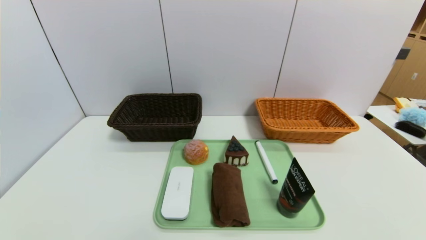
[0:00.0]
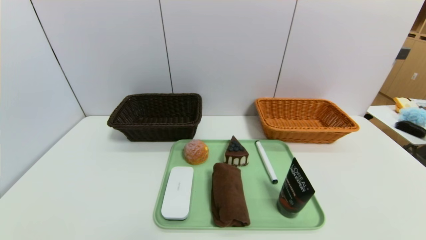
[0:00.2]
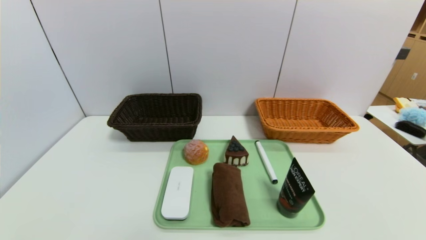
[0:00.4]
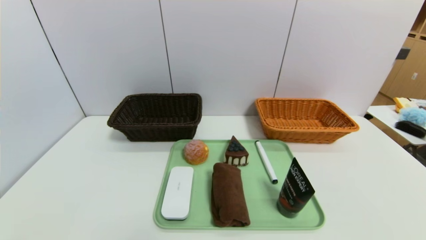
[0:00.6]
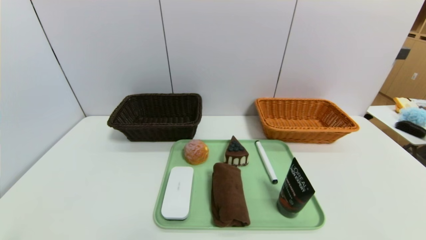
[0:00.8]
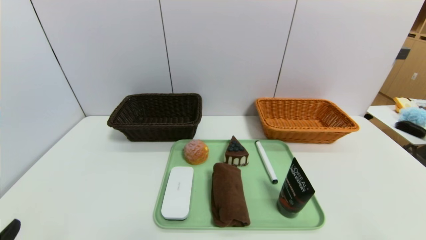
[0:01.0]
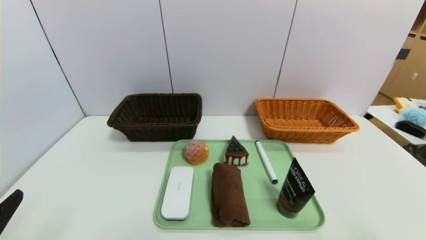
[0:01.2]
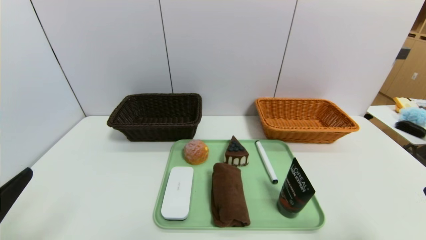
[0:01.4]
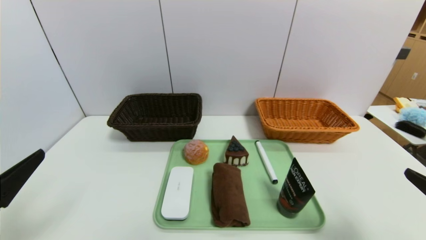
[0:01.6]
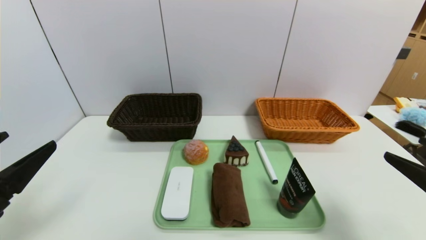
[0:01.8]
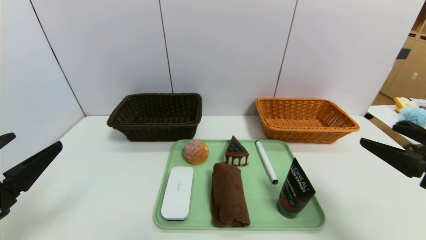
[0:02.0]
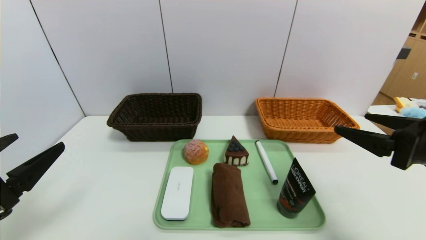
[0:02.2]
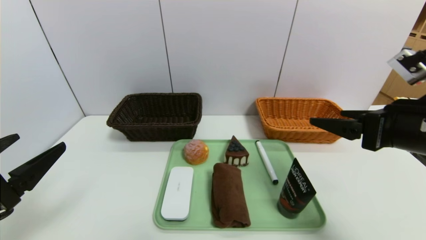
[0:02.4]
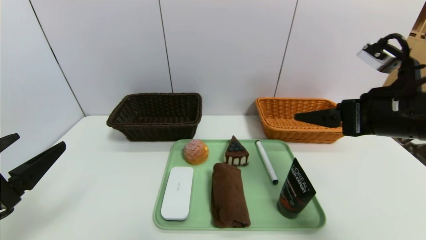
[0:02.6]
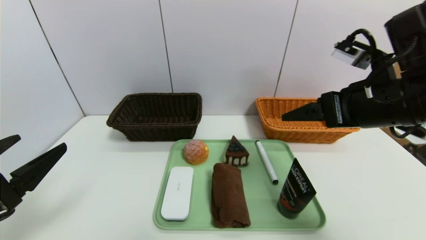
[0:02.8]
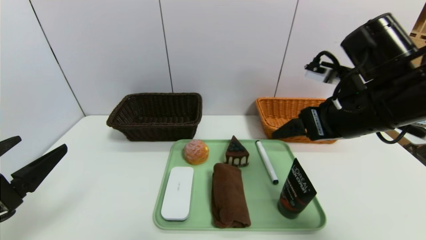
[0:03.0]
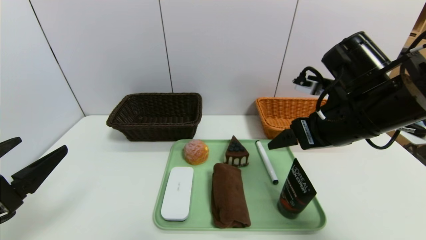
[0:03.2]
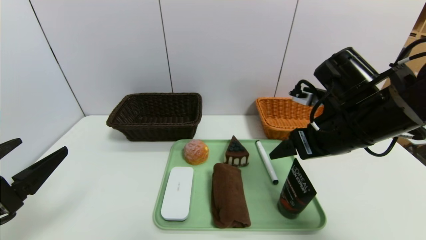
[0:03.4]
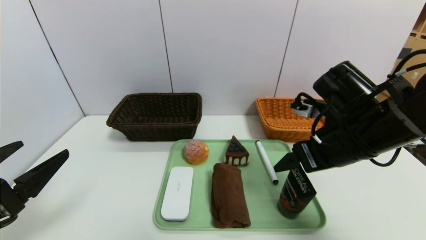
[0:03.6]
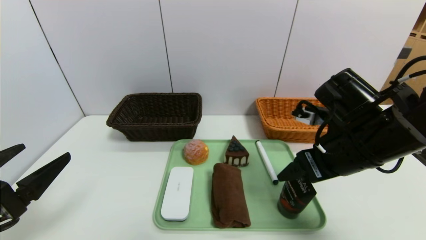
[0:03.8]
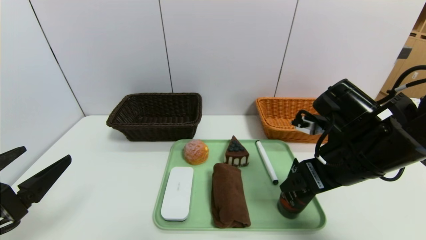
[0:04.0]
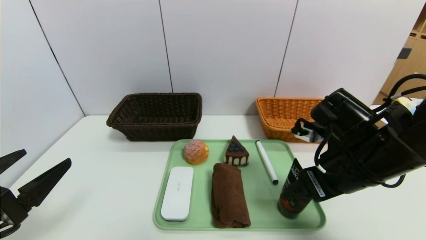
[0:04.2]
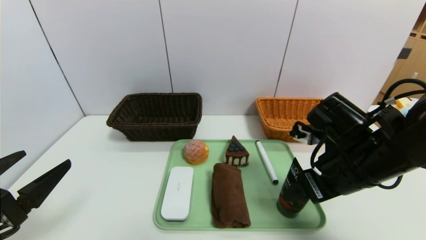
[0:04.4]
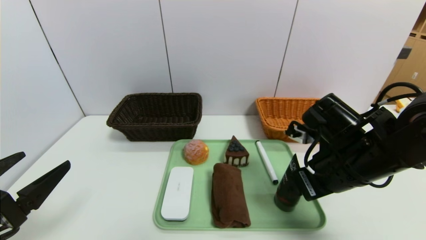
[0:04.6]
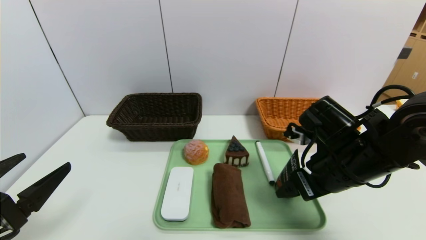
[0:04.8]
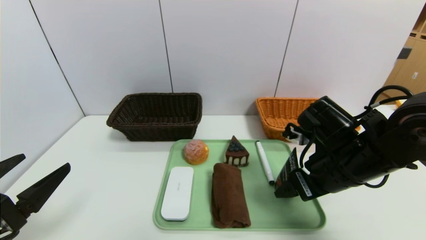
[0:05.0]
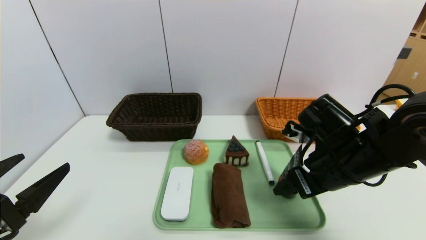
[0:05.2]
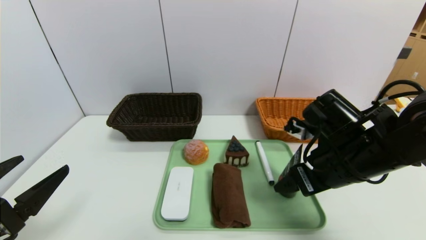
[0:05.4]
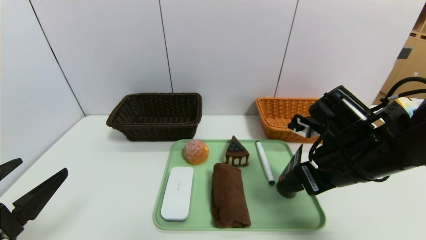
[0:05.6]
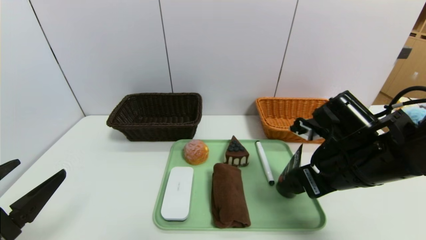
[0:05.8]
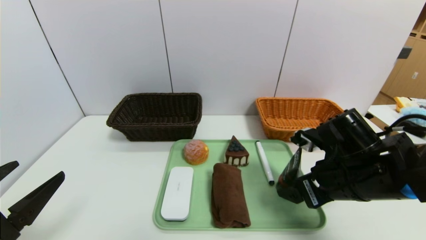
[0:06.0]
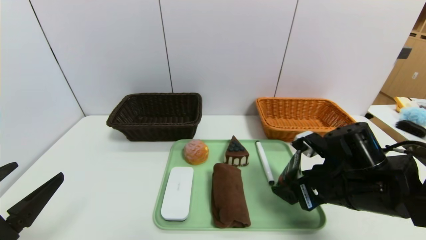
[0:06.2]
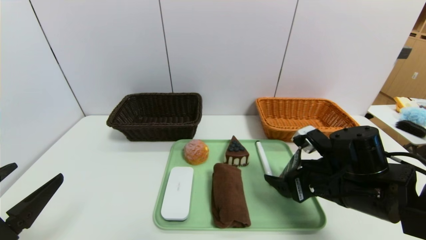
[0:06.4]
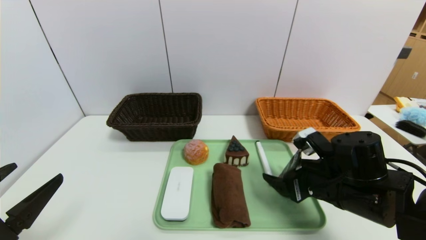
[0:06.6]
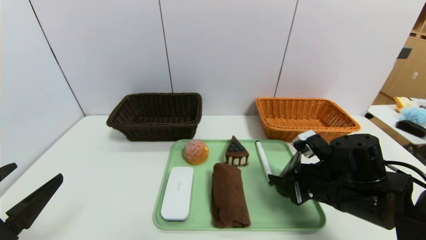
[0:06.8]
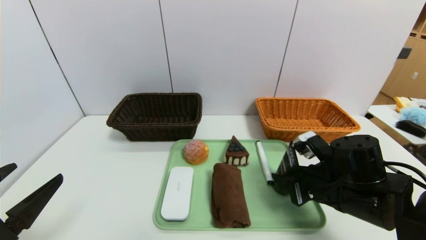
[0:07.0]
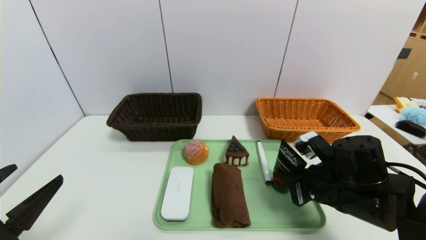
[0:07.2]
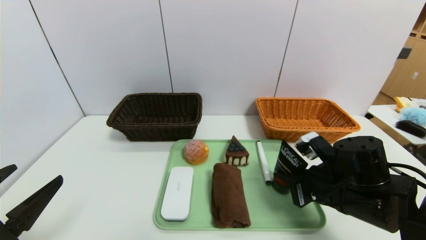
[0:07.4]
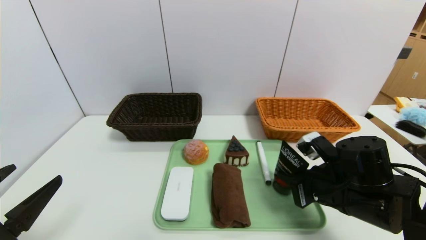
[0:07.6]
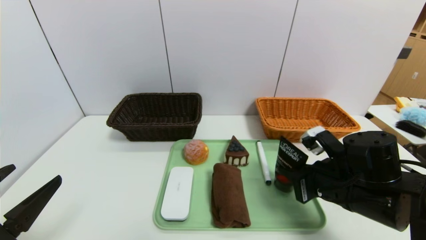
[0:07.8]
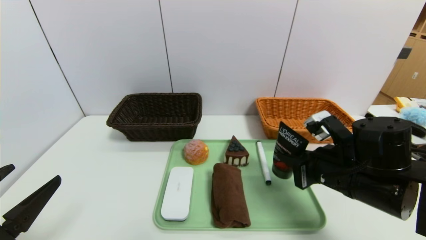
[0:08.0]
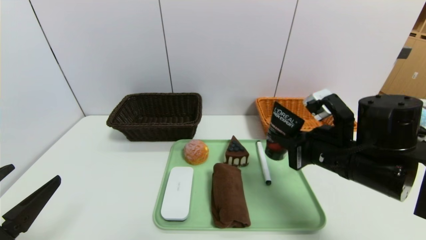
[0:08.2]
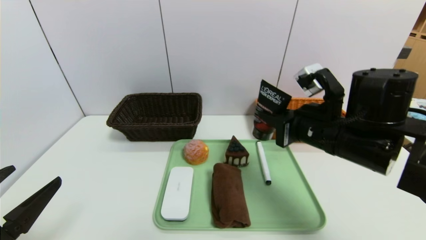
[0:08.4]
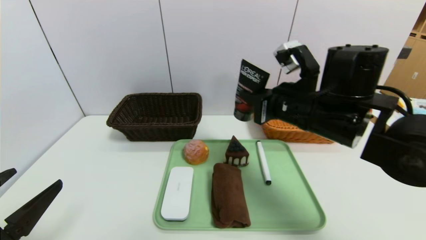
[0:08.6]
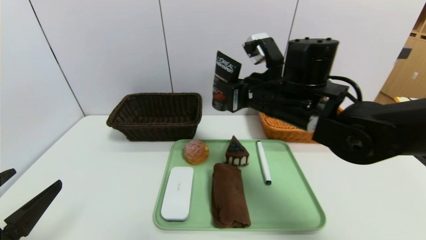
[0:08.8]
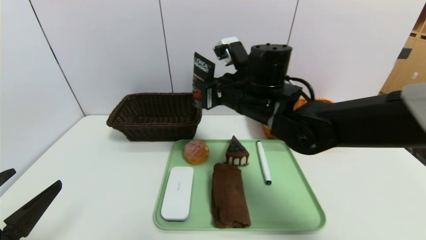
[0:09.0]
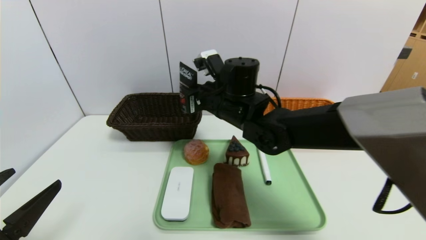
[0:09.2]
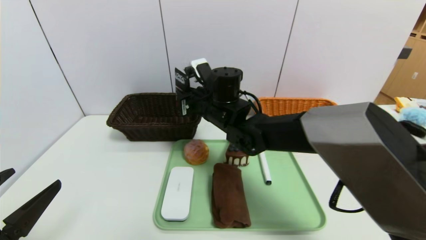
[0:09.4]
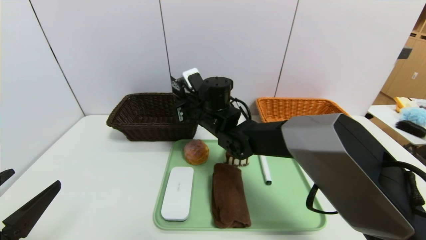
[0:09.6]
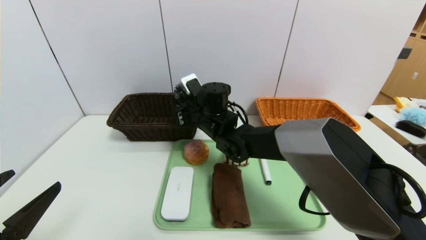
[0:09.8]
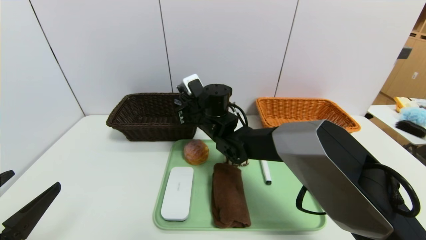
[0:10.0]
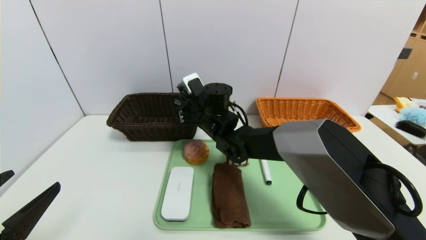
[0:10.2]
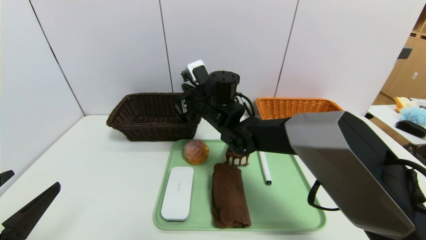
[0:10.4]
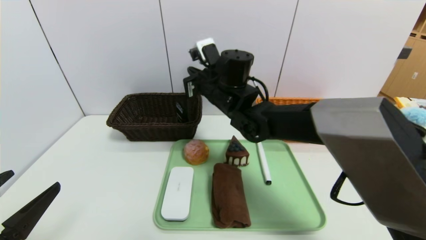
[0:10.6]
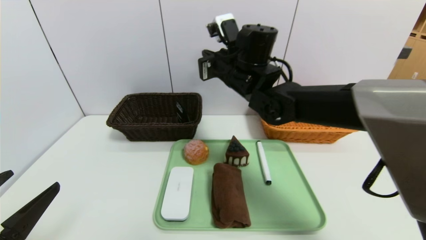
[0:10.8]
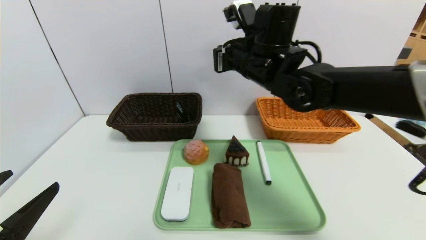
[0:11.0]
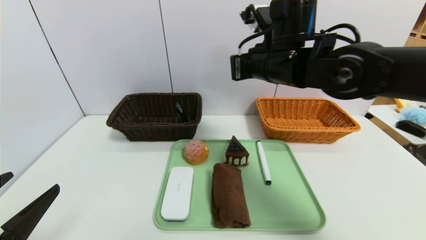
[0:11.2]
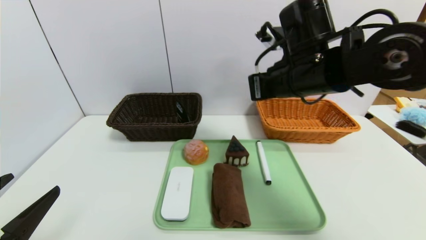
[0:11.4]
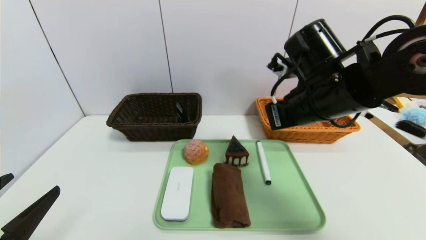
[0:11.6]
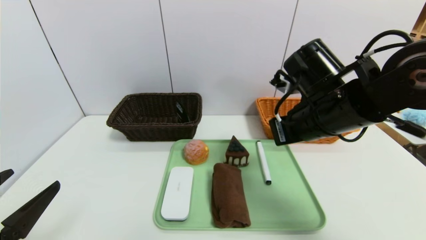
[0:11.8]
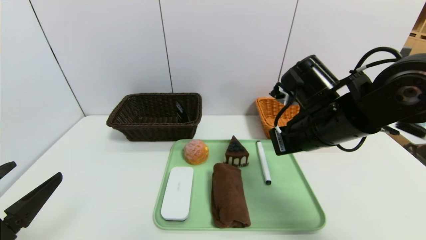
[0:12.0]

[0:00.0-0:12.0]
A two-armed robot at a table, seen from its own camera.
Task of the whole recording: place the food in the right basket with the right gripper, and place the non food items in the left basket with the left gripper.
Step, 0:00.0 to 0:10.4: Grasp the hard cleanser and put it in the left basket.
0:00.0 to 0:01.6: Both grippers move upward and forward, some 15 cm.
0:01.6 to 0:03.0: The right gripper heads forward, to the left and upward, covering approximately 20 cm.
0:03.0 to 0:04.4: The right gripper shifts about 10 cm downward.
0:04.4 to 0:06.0: The grippers make only small movements.
0:06.0 to 0:07.6: The right gripper closes.
0:07.6 to 0:09.0: The right gripper moves to the left, upward and forward, some 25 cm.
0:09.0 to 0:10.4: The right gripper shifts about 10 cm to the left, forward and downward.
0:10.4 to 0:12.0: The right gripper heads to the right and backward, covering about 20 cm.

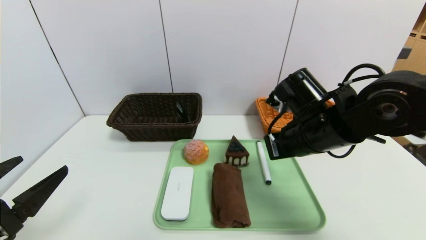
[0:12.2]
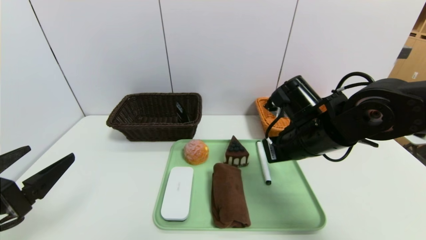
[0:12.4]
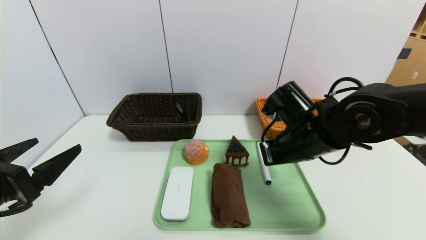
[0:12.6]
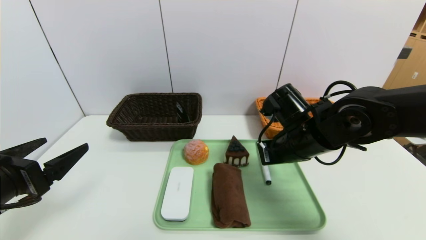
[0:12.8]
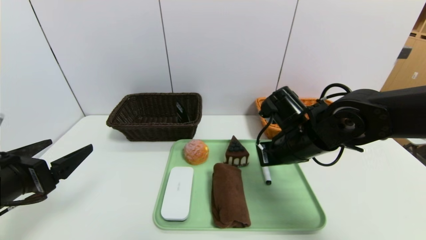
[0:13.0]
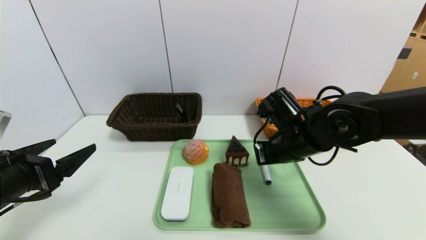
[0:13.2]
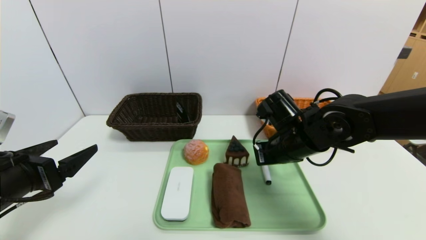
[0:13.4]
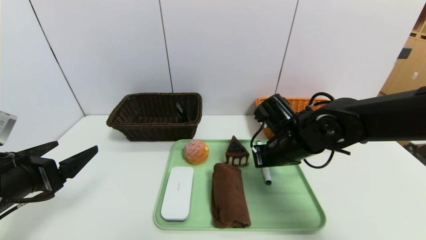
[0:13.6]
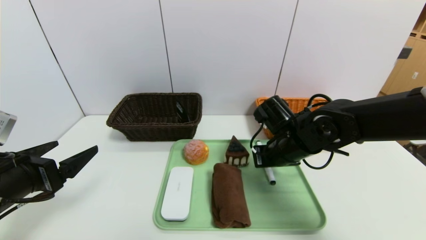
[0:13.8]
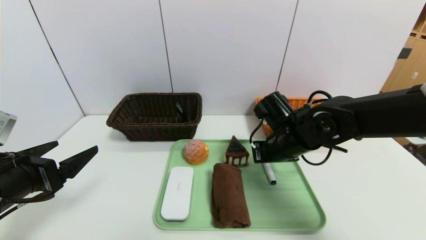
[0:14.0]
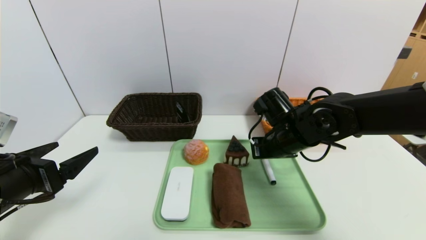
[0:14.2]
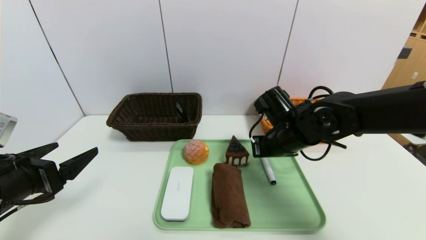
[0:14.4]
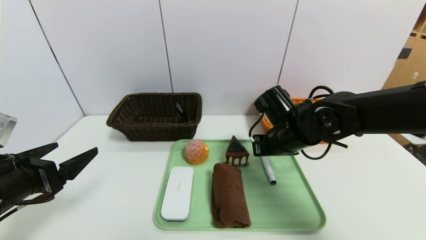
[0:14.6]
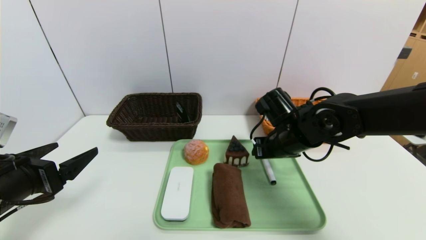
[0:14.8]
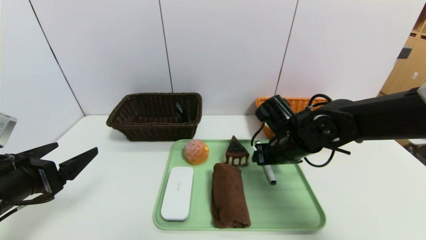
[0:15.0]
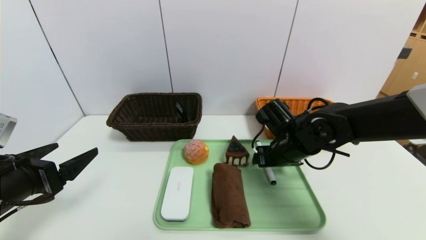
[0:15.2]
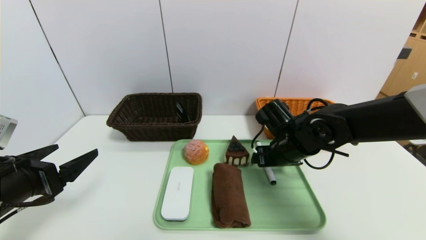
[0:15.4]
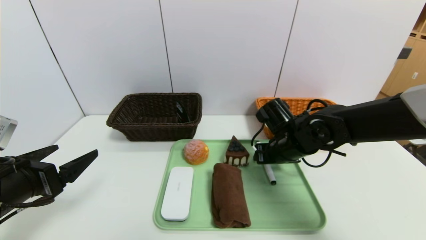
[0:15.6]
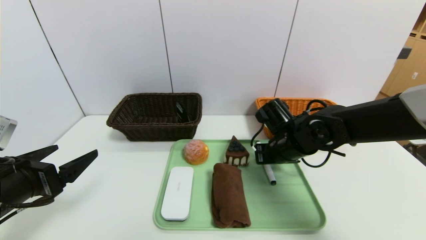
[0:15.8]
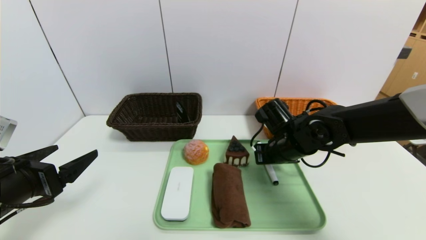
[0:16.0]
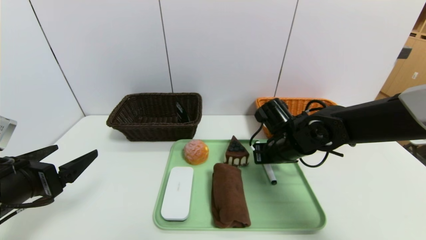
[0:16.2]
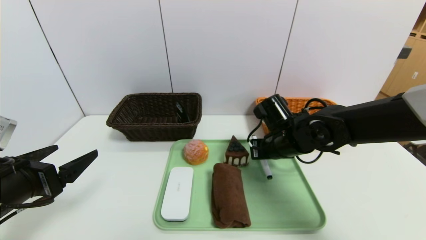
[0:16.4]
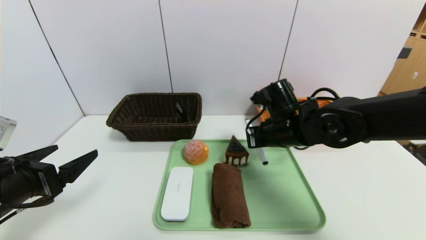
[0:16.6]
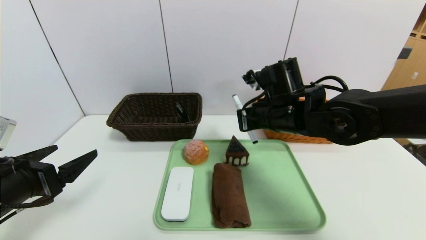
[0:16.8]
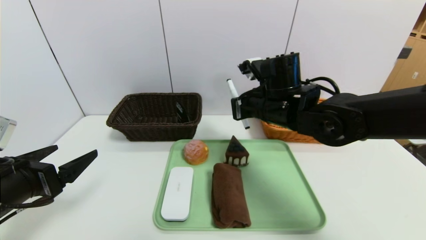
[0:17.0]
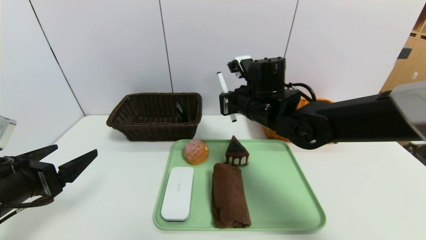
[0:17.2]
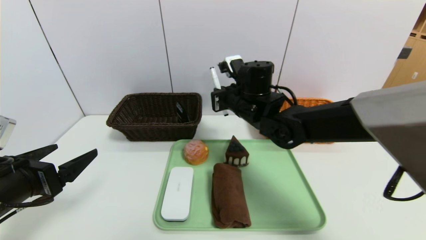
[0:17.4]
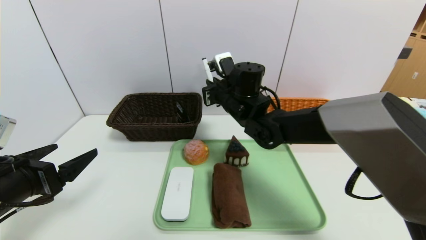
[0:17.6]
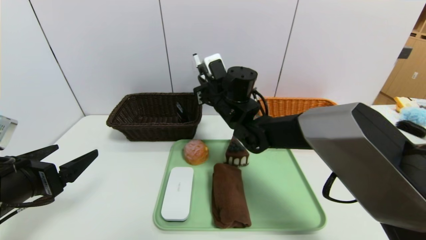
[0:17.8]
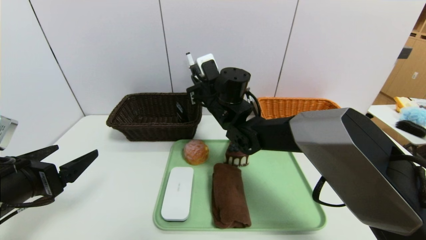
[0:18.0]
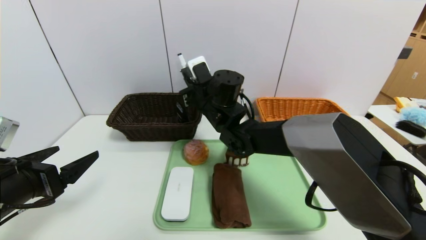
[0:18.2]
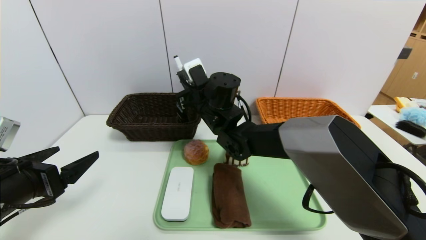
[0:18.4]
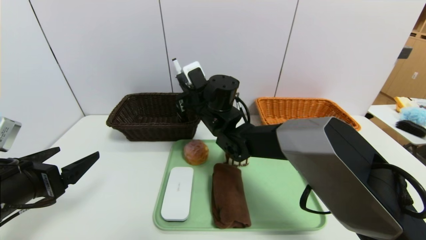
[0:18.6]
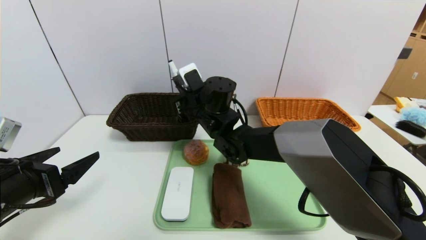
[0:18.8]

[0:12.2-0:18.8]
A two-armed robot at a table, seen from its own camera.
Task of the whole recording: place the food in the right basket with the right gripper, and place the non food items in the left basket with the left gripper.
0:12.2 to 0:13.8: The left gripper heads forward, covering some 5 cm. Meanwhile the right gripper travels downward by approximately 5 cm.
0:13.8 to 0:15.4: The right gripper opens its fingers.
0:15.4 to 0:17.2: The right gripper is displaced upward and to the left by roughly 10 cm, and closes up.
0:17.2 to 0:18.8: The right gripper shifts approximately 10 cm to the left.
